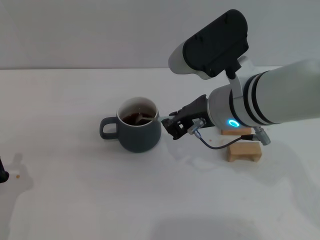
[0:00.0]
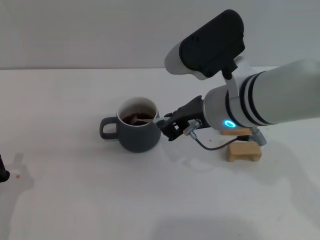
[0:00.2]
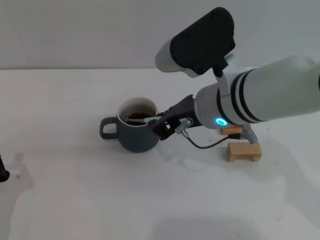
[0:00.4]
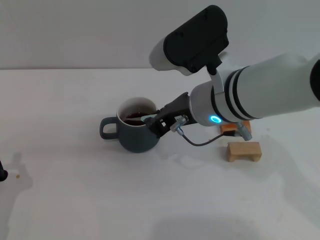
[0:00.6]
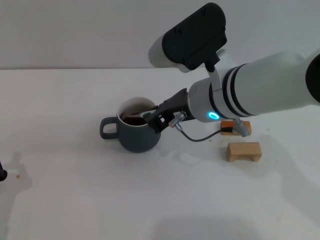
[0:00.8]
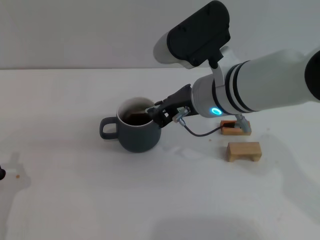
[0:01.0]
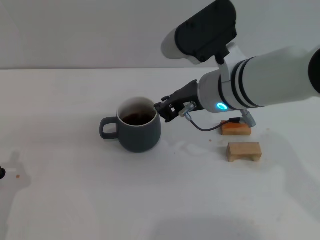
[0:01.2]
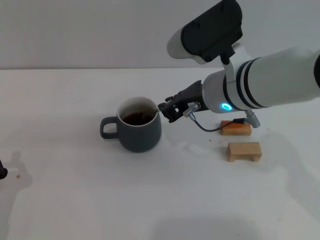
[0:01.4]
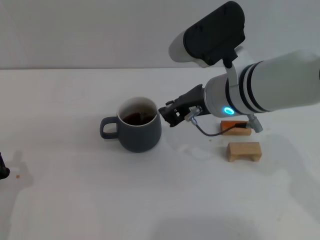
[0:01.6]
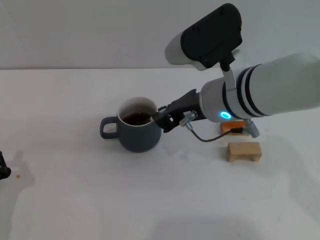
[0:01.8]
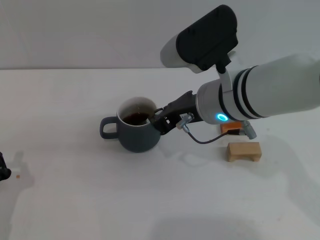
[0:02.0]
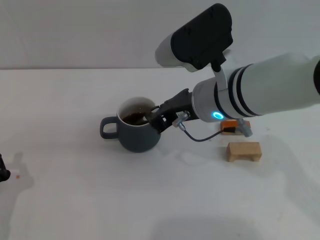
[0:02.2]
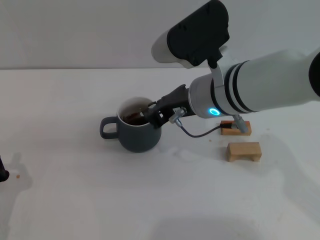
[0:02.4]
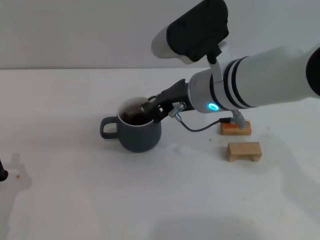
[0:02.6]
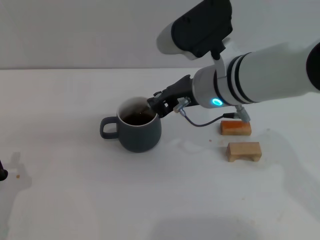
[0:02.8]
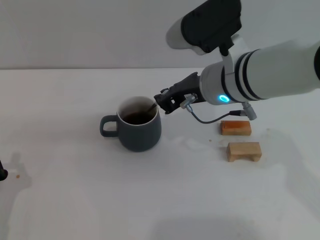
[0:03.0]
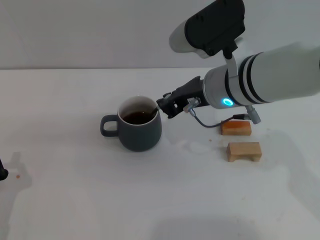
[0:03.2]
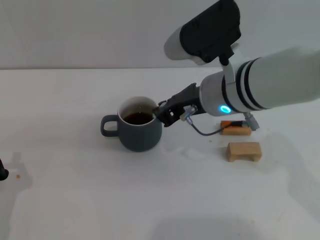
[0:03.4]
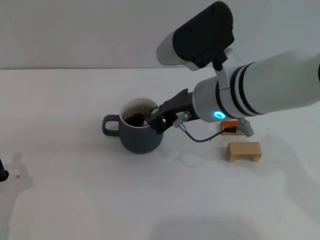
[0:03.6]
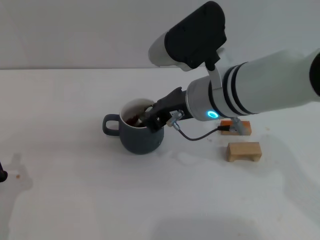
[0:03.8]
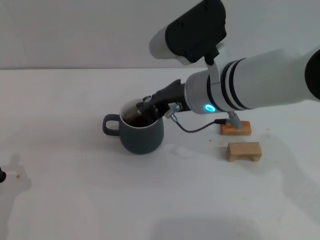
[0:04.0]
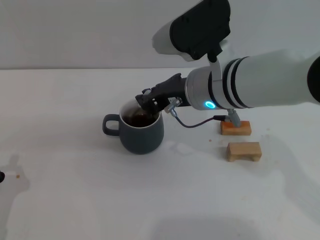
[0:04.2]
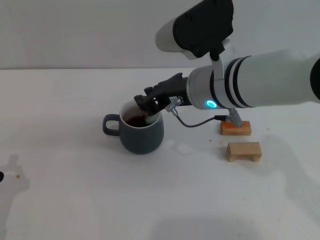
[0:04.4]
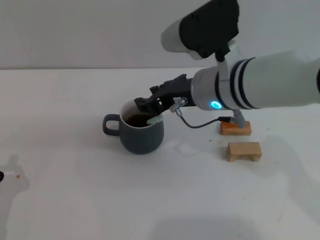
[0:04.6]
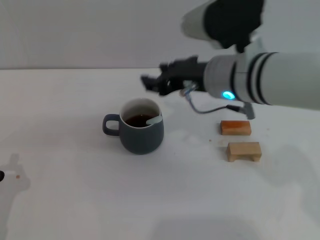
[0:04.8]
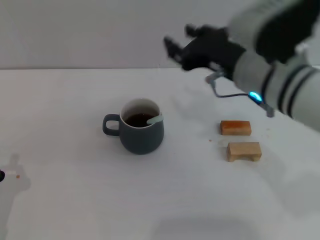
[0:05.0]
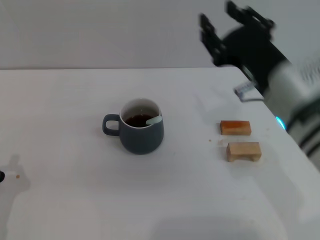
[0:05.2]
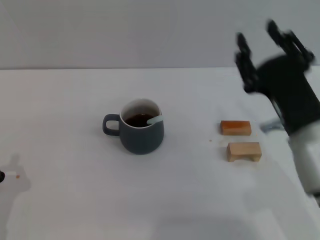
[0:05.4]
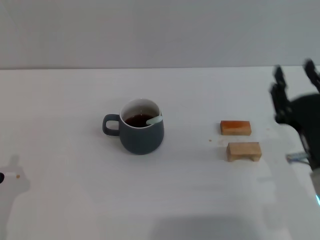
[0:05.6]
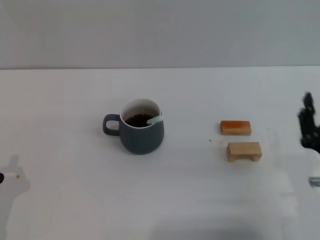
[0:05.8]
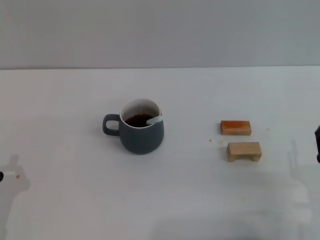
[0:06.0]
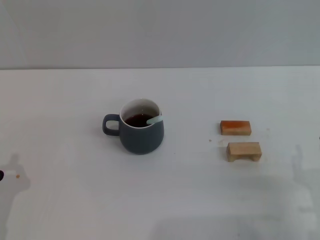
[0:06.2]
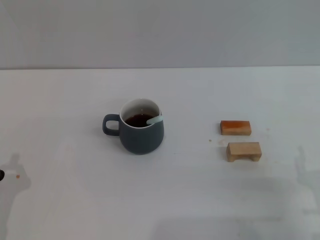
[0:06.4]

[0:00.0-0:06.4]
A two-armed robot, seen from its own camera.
Task of the whole recording: Move the grey cup to the center, lift the blue spoon, stir it three times in the cup, and put the spoon into the cup.
Step, 0.0 to 4.6 s: Stir the coffee in the cup with the right gripper.
0.0 to 3.2 s: There are only small adjustments of the grippers.
3.2 to 4.8 s: The right gripper opens up.
4.8 to 6.4 s: The right gripper is displaced backward, to the right and downward by some 30 cm.

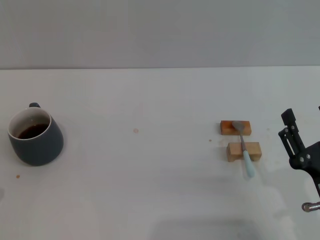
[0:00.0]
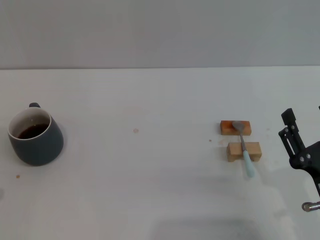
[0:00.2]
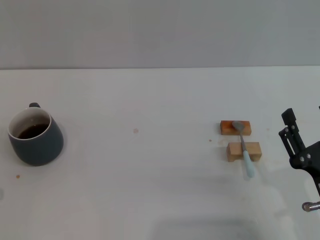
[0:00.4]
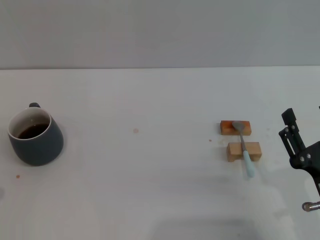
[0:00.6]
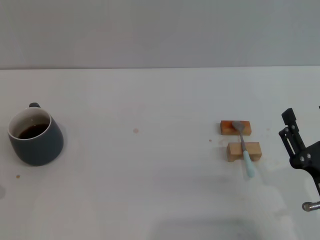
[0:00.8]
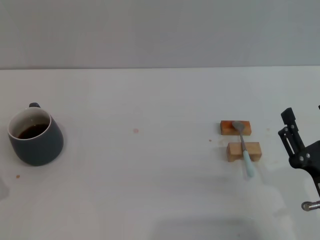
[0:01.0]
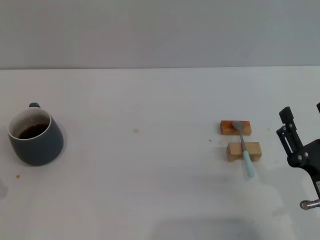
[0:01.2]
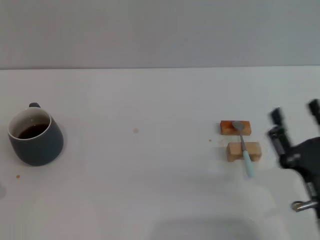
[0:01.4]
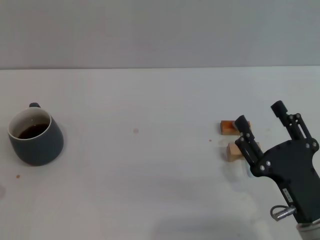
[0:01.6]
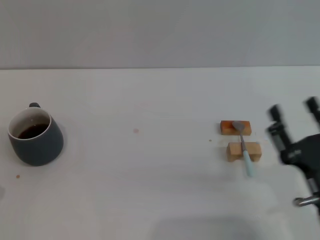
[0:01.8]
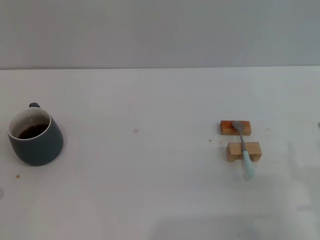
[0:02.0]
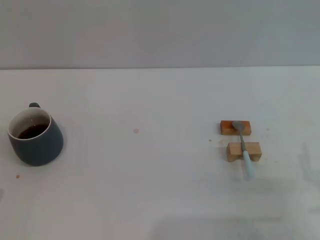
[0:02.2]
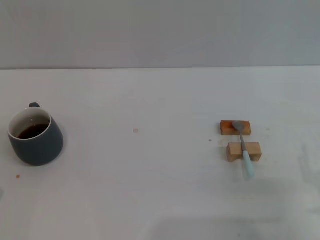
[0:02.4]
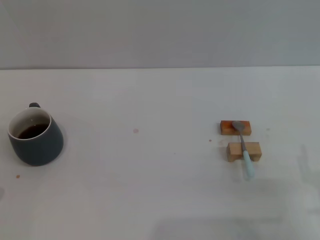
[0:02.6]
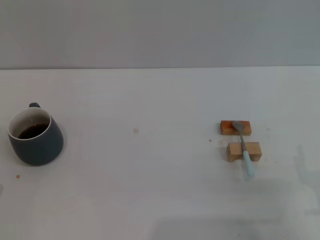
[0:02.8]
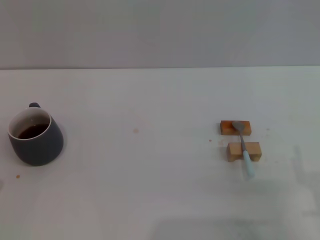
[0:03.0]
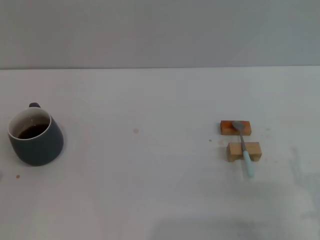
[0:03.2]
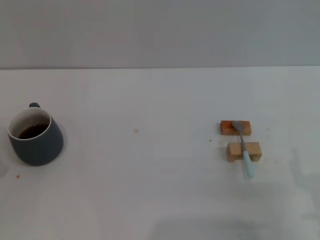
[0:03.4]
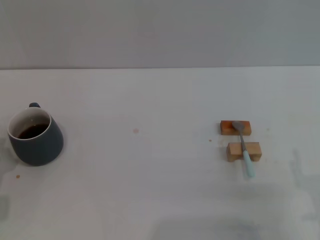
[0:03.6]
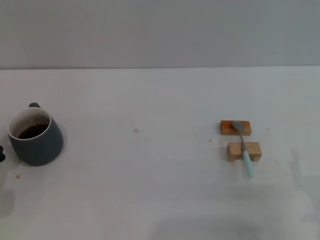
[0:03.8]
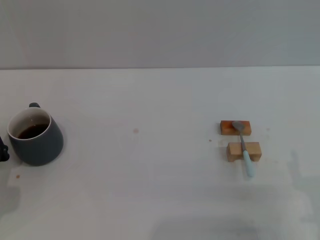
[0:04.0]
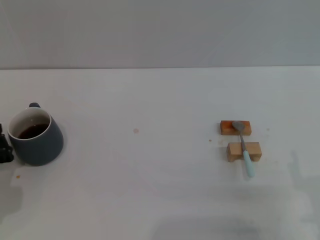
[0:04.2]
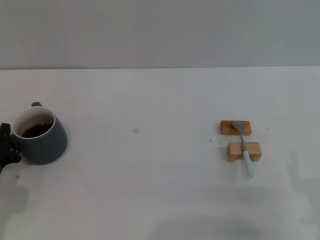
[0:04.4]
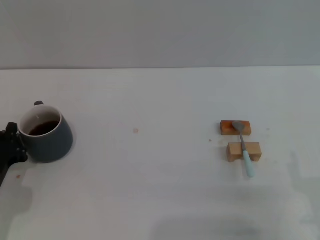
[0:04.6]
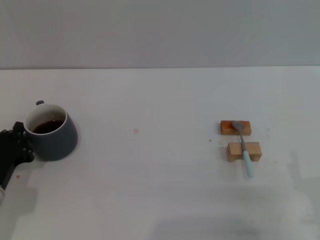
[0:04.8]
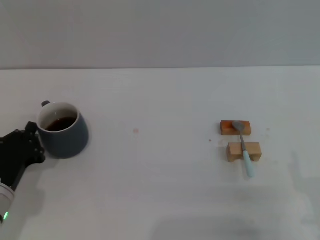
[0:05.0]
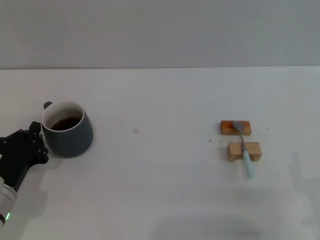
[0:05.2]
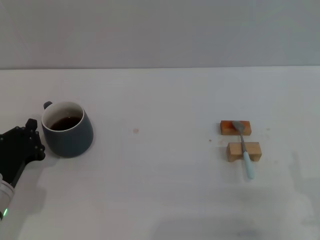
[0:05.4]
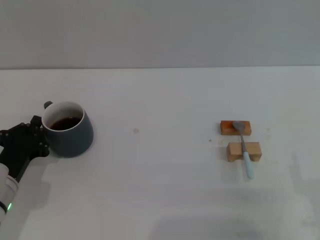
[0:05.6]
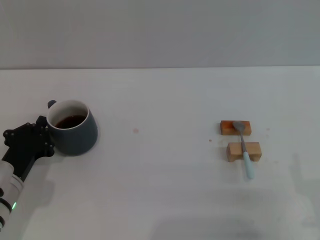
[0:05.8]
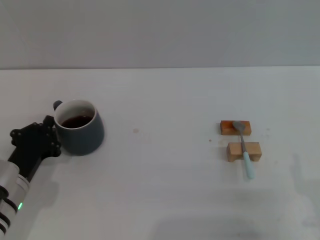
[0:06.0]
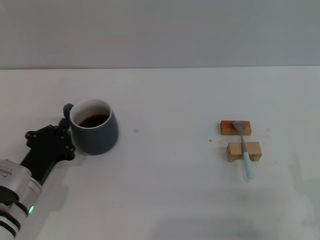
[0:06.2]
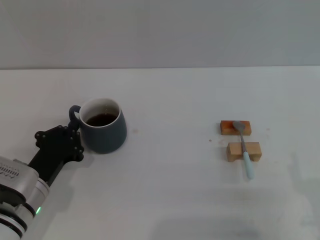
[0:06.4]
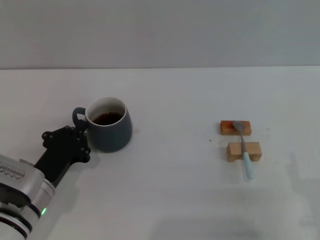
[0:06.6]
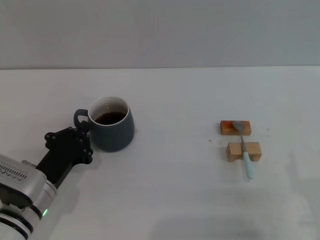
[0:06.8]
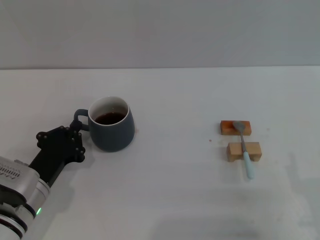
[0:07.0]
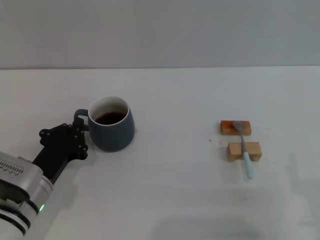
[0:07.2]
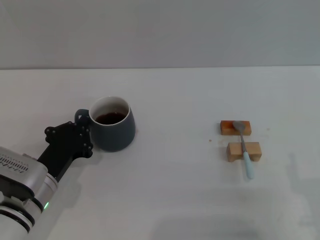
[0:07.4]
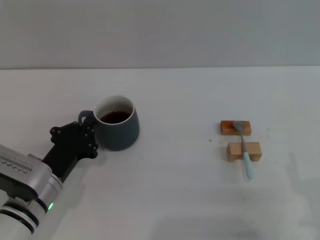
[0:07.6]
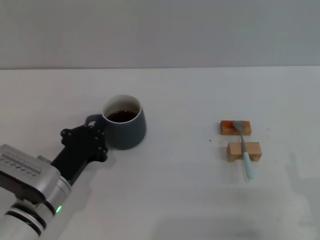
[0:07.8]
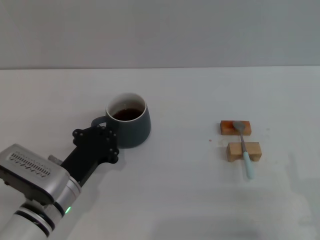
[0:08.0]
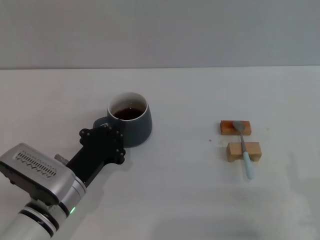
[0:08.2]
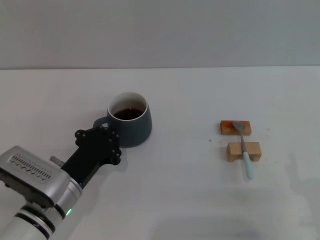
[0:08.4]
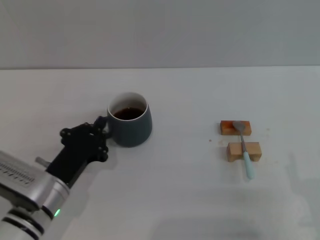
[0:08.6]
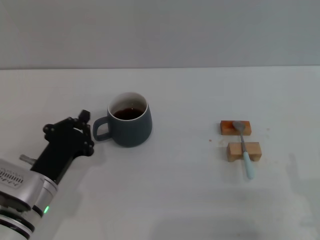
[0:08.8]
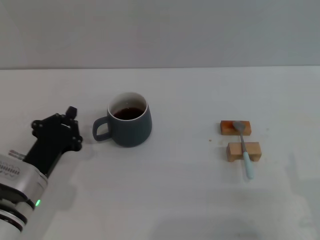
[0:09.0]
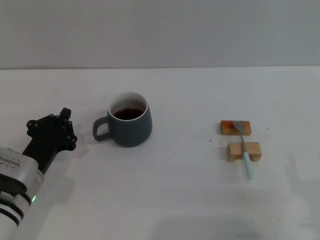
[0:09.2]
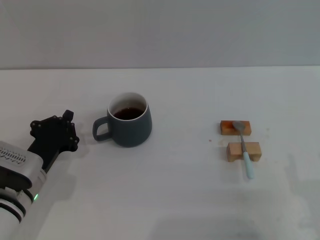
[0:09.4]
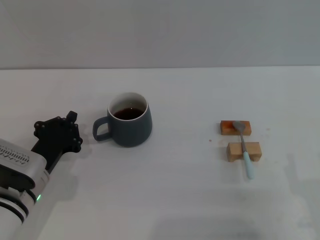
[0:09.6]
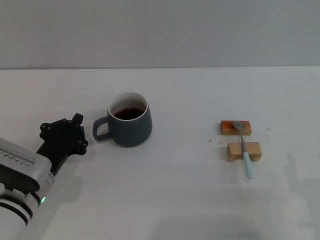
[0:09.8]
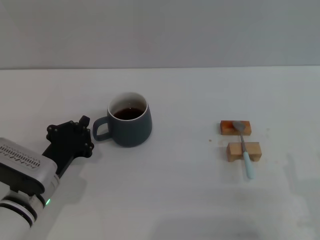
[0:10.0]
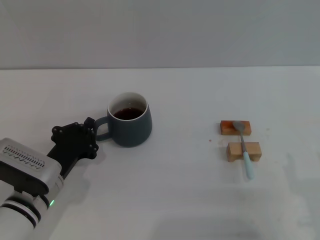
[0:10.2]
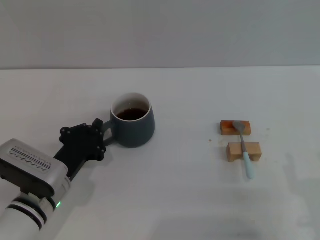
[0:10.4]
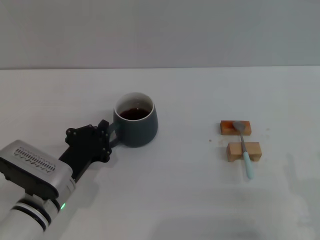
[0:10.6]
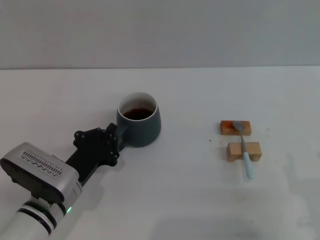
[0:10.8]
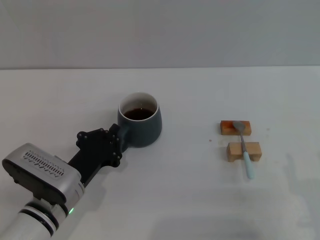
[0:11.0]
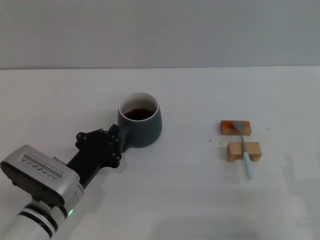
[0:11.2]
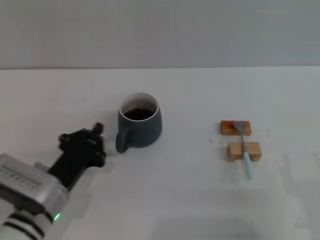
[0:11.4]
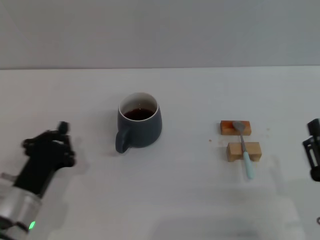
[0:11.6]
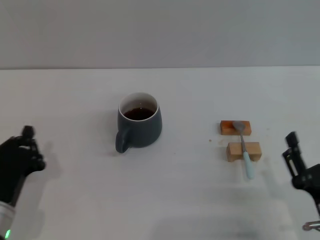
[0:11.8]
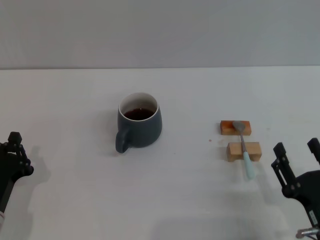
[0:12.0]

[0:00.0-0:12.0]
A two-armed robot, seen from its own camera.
Task of the whole recording: Move the grey cup to the center, lift the blue spoon, stir it three times in the cup, and put the spoon into the cup.
Step, 0.0 to 11.2 s: Move the cup with coffee to the center of view with the left gripper.
0.0 to 1.6 s: The grippers move only a little.
1.6 to 3.0 s: The right gripper heads to the right, covering about 5 cm.
3.0 to 4.4 s: The left gripper heads forward, covering about 10 cm.
4.4 to 6.0 s: The grippers move only a little.
6.0 to 7.6 s: The grippers make only small movements.
7.6 to 10.4 s: The grippers stay close to where they were, moving slightly.
10.4 to 12.0 s: The left gripper travels backward and to the left by some 10 cm.

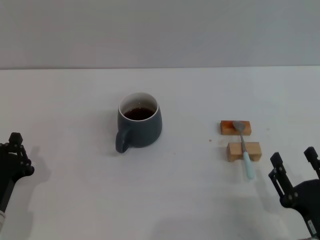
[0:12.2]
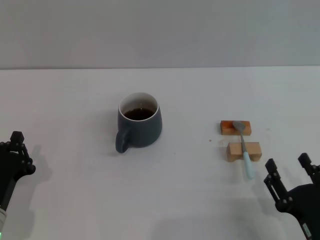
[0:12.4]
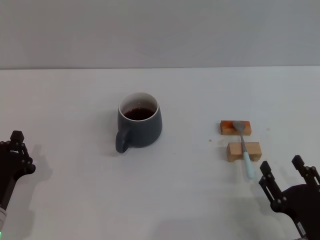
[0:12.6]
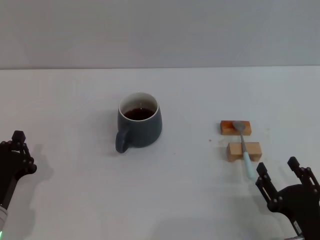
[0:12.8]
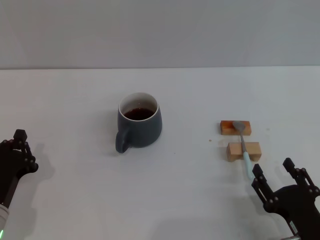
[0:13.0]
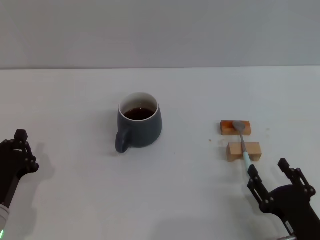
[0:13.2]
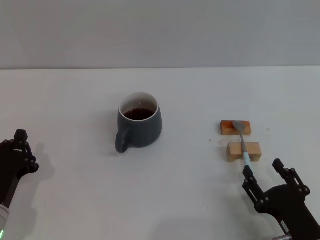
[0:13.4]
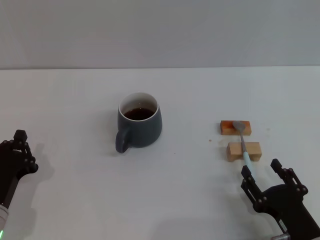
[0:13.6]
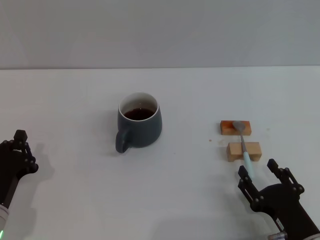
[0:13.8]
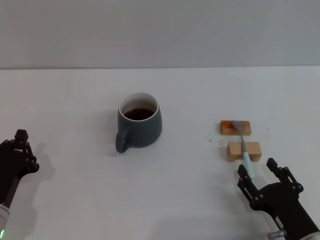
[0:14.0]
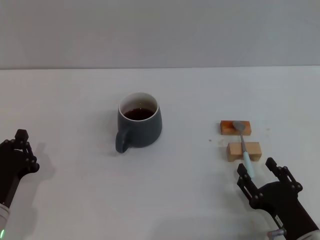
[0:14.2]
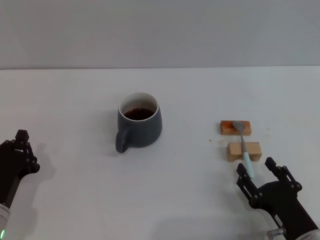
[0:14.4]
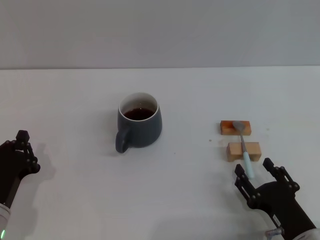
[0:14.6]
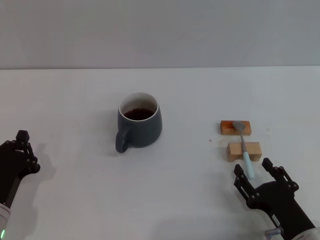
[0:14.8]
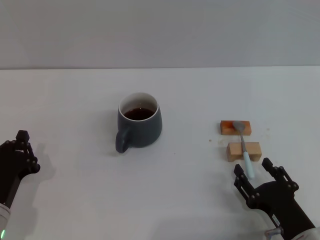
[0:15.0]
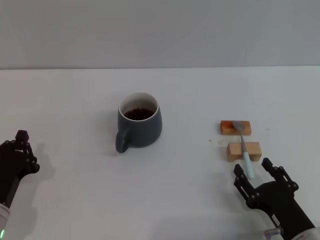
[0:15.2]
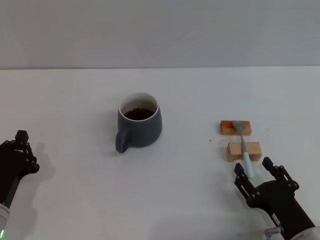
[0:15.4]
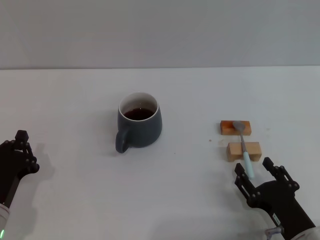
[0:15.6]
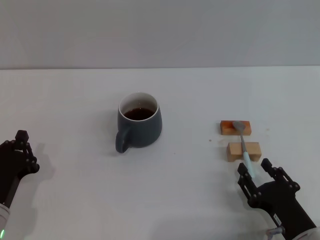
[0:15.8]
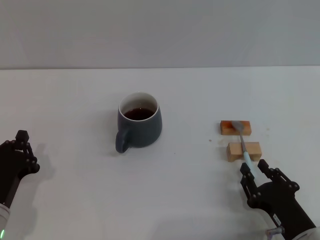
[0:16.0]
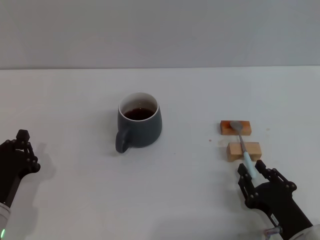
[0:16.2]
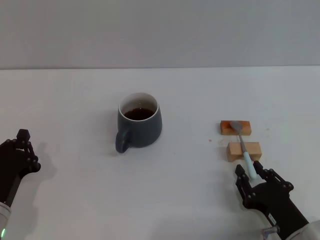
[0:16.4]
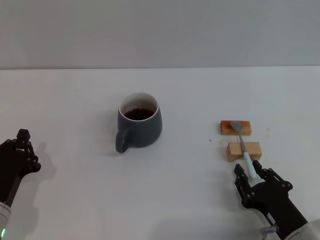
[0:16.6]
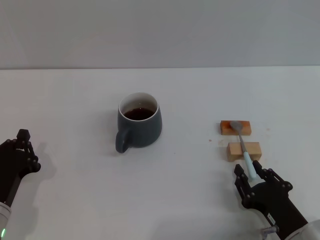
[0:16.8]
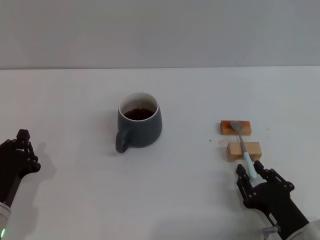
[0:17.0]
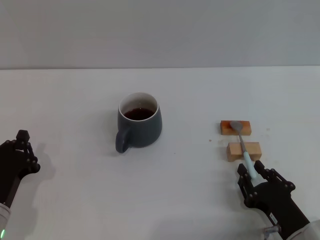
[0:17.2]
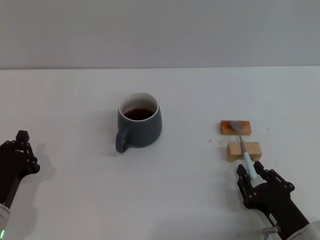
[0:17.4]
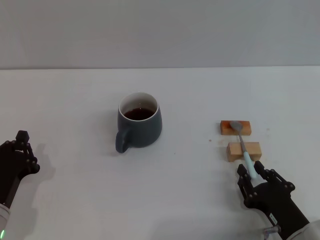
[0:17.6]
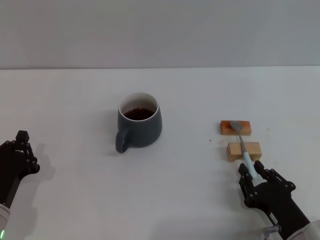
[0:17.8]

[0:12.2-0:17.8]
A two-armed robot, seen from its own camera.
Task of the whole recording: Move the grey cup to the center, lift the blue spoon, stir it three times in the cup, and put the spoon into the cup.
12.2 to 13.6 s: The grippers move only a little.
13.6 to 15.0 s: Both grippers stay about where they are.
15.0 to 16.4 s: The right gripper closes its fingers.
16.4 to 17.8 s: Both grippers stay about where they are.
